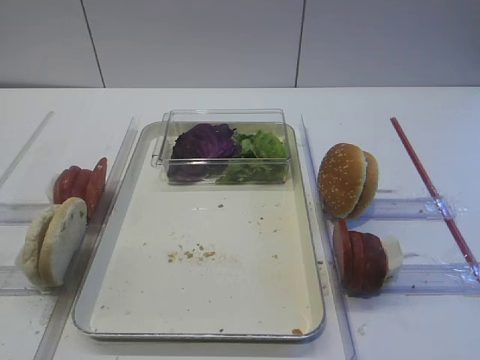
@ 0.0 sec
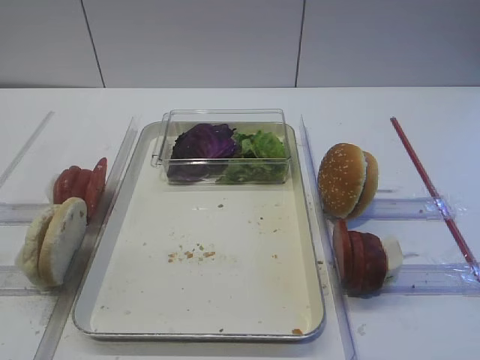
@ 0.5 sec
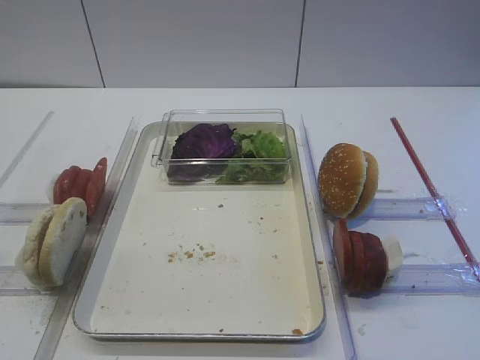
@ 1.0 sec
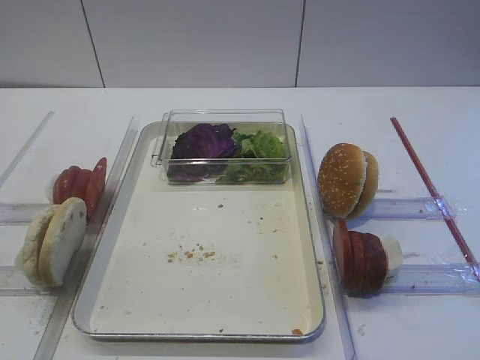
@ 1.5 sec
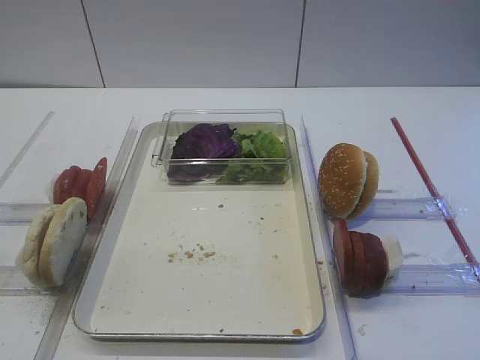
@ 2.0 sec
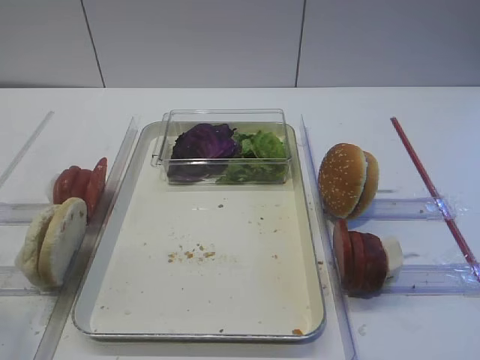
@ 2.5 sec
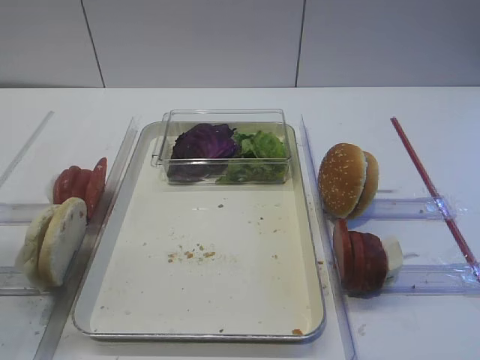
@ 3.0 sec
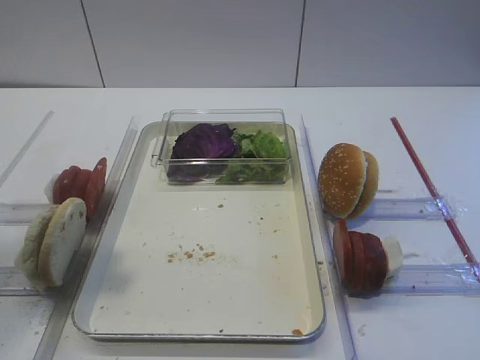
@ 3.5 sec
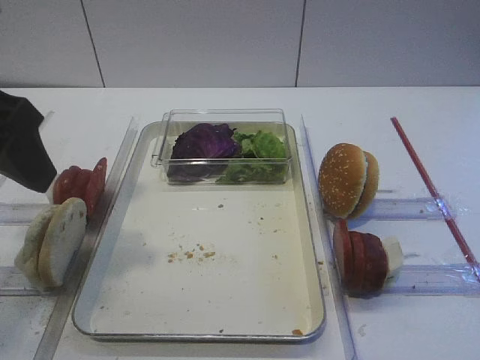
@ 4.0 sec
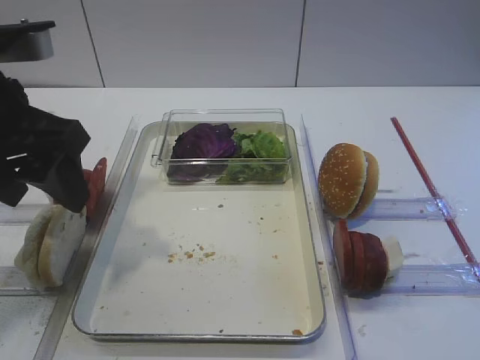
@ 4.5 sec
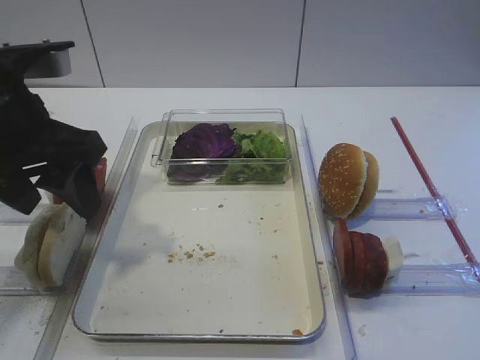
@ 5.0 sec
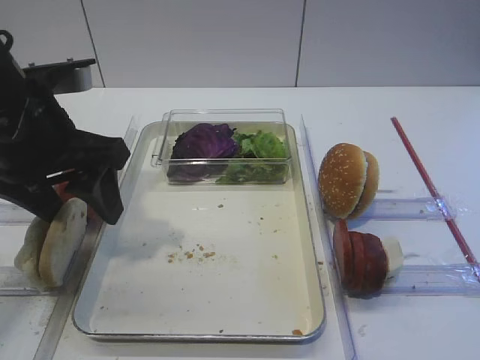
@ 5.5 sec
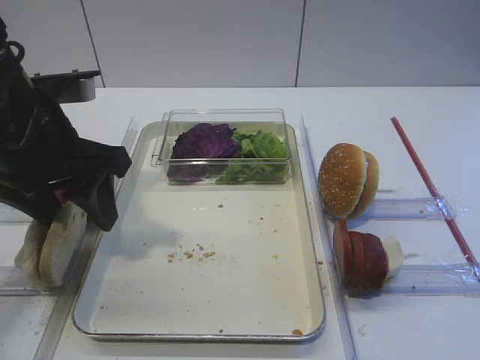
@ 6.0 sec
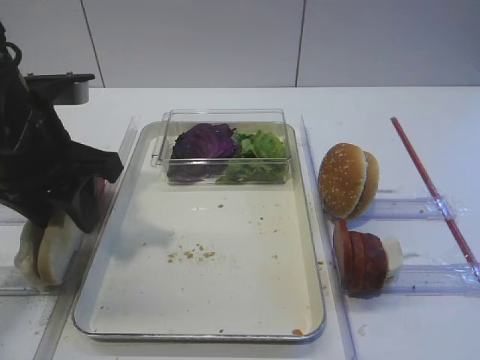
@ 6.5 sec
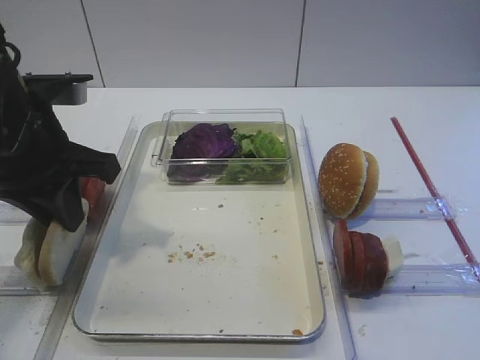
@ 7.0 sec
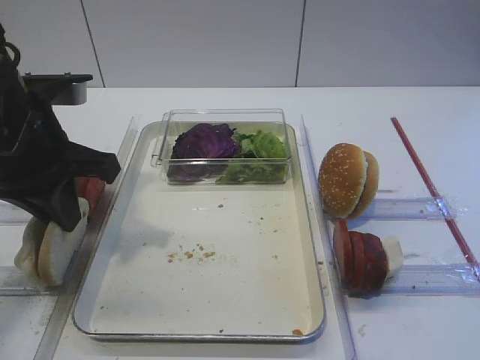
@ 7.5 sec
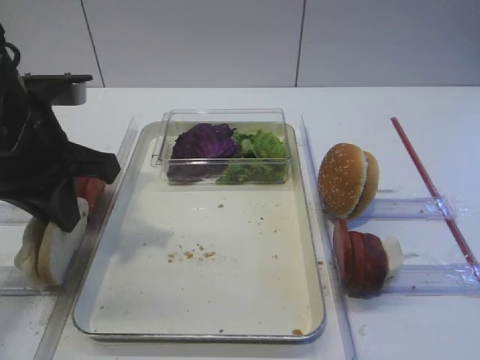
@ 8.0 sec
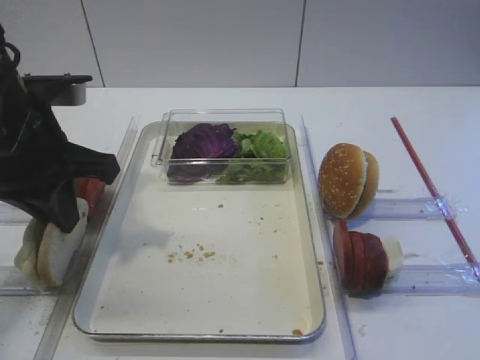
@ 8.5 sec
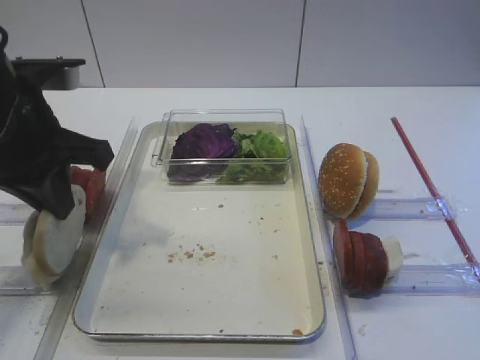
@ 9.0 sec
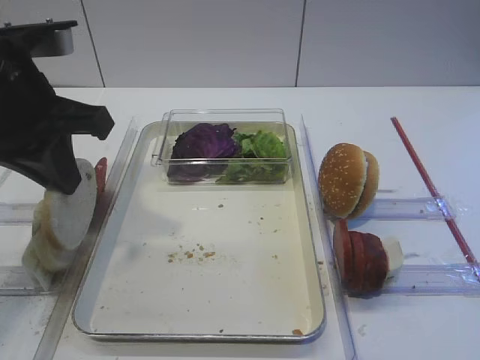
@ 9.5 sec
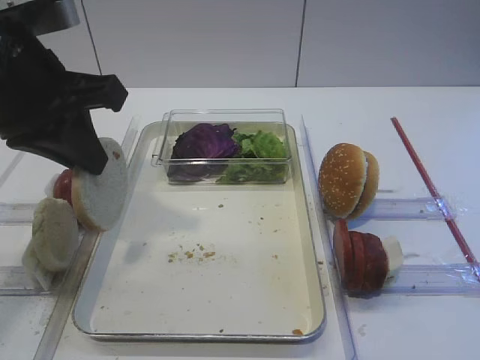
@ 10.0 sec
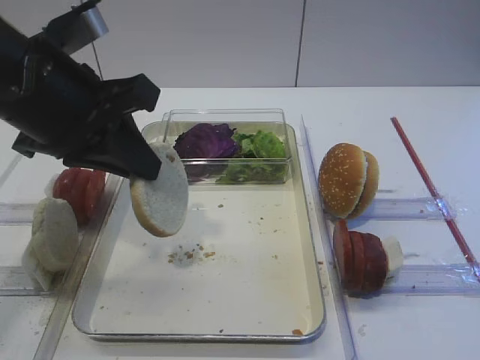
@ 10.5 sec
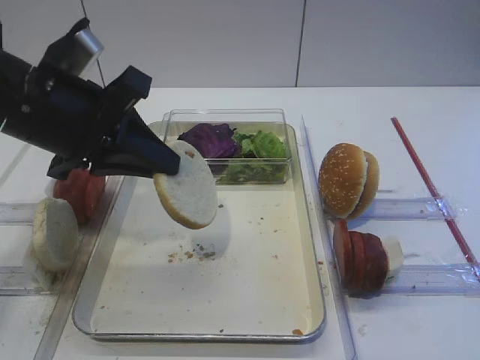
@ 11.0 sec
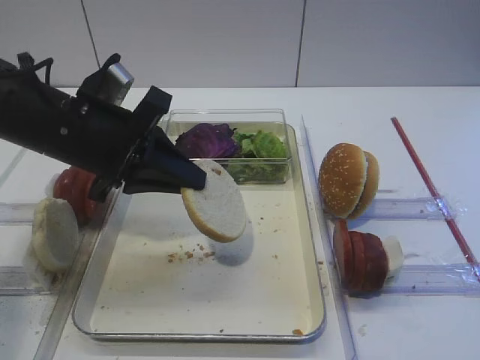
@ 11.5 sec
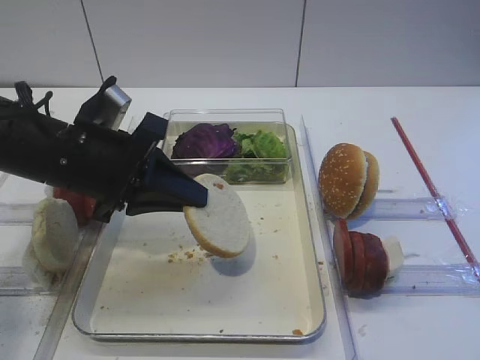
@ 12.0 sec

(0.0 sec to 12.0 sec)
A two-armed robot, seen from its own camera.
Step, 0.0 sec - 10.0 sec: Pick up the bread slice with the left gripper.
2.0 sec - 4.0 sec: The left gripper is displaced forward by some 20 cm.
4.0 sec - 6.0 sec: The left gripper goes some 10 cm downward and forward.
6.0 sec - 8.0 sec: The left gripper closes its fingers.
8.0 sec - 10.0 sec: The left gripper travels upward by approximately 5 cm.
10.0 sec - 12.0 sec: The left gripper travels downward by roughly 10 cm.

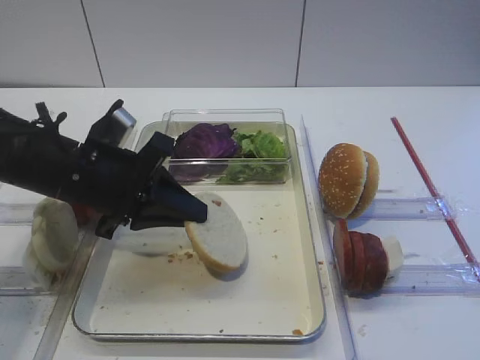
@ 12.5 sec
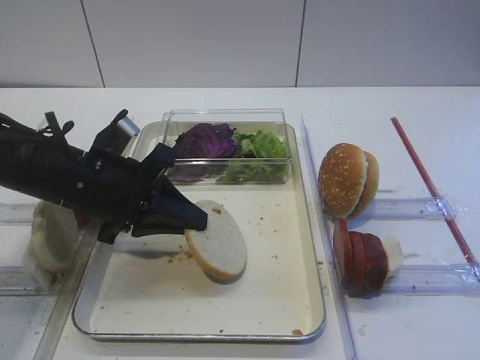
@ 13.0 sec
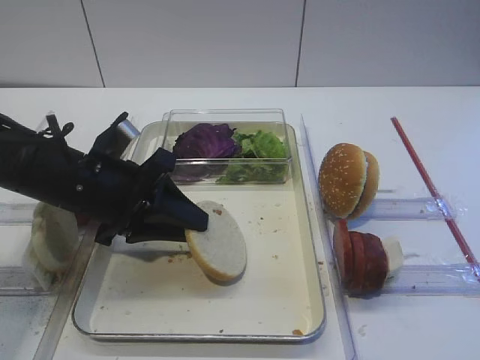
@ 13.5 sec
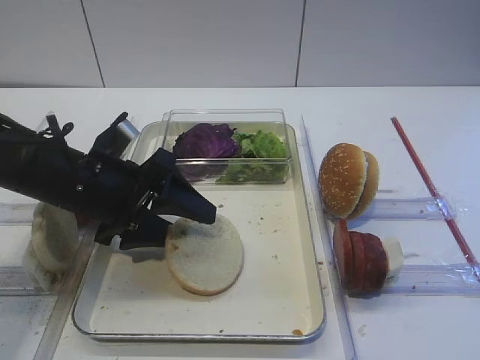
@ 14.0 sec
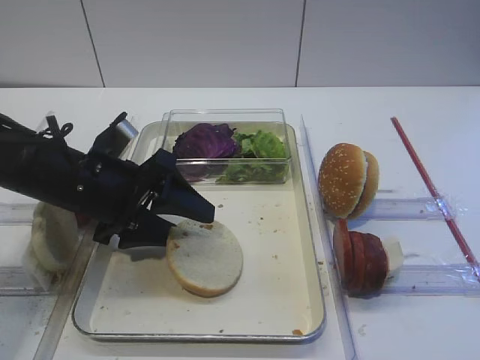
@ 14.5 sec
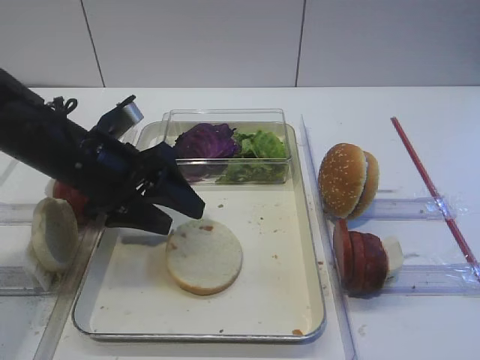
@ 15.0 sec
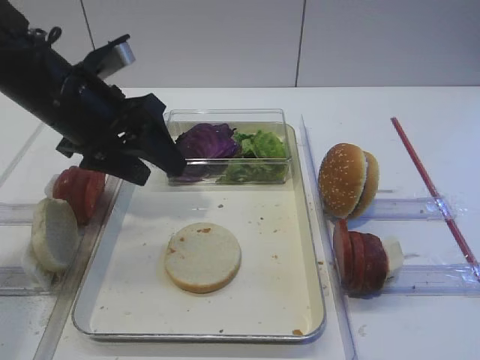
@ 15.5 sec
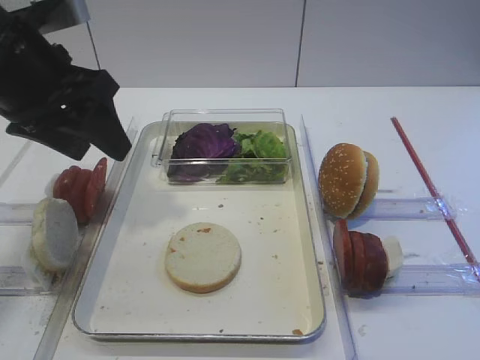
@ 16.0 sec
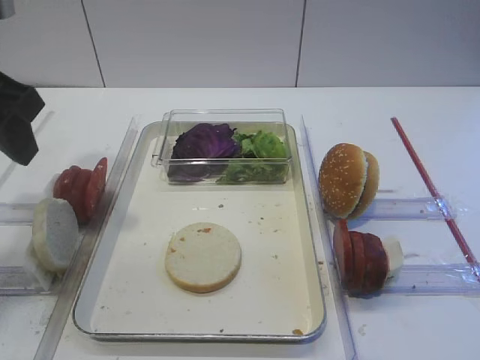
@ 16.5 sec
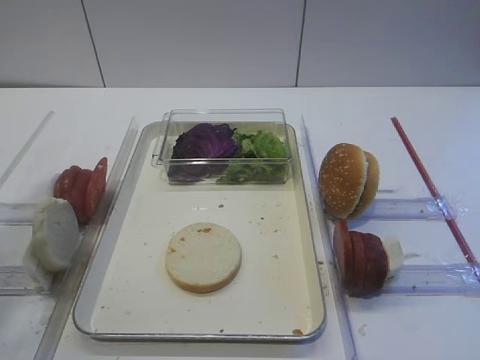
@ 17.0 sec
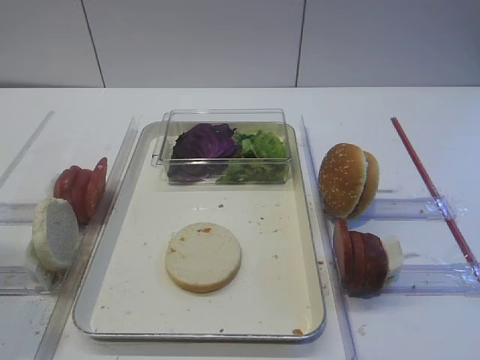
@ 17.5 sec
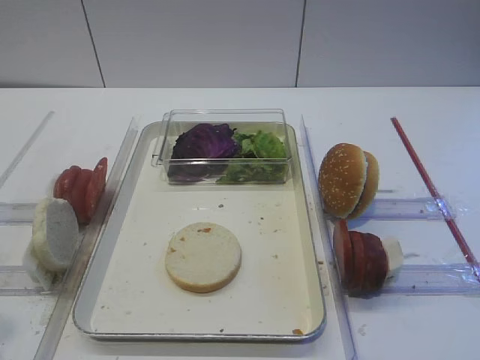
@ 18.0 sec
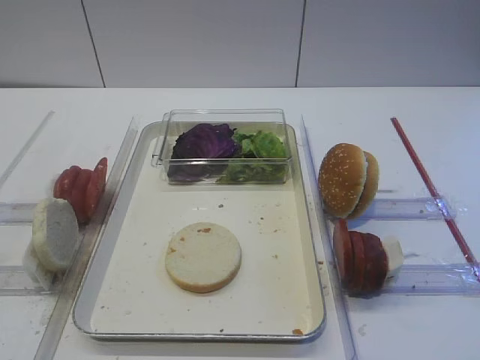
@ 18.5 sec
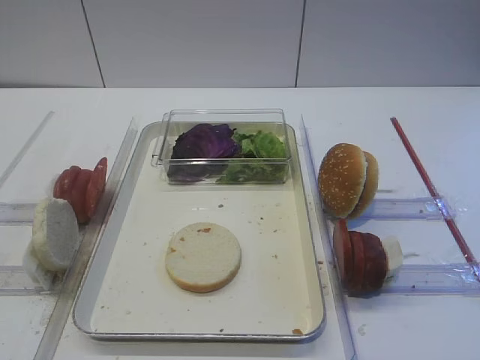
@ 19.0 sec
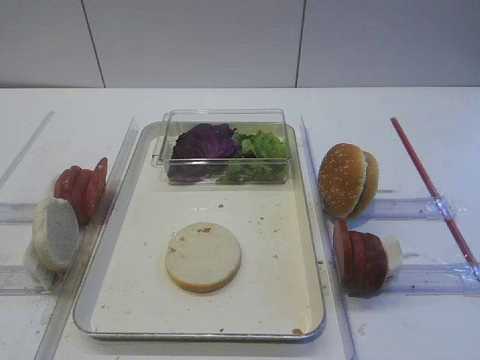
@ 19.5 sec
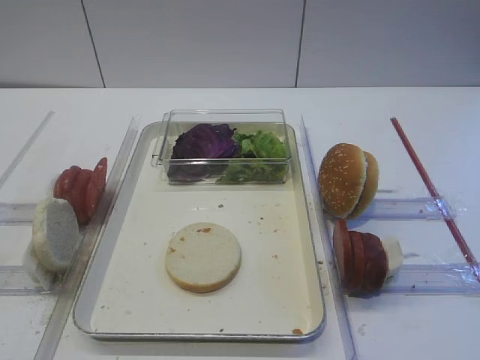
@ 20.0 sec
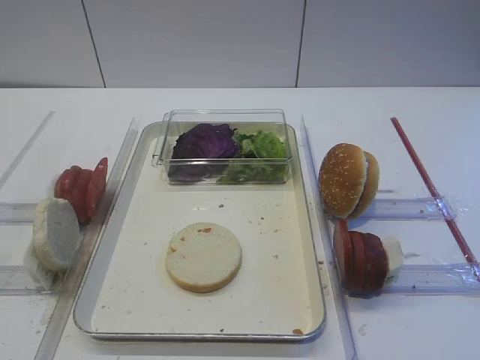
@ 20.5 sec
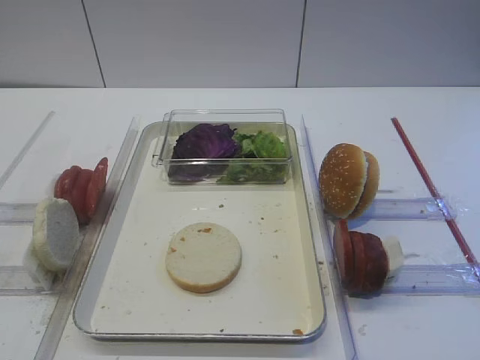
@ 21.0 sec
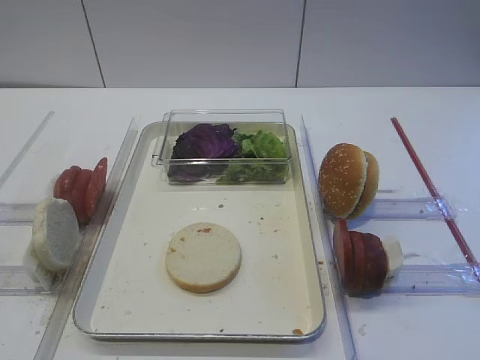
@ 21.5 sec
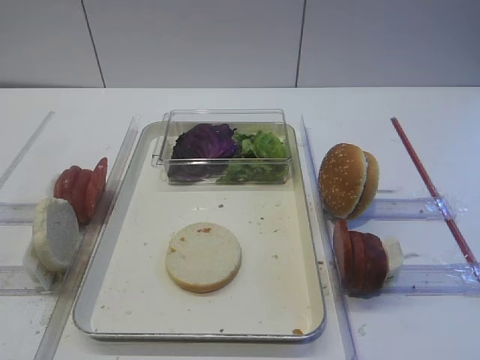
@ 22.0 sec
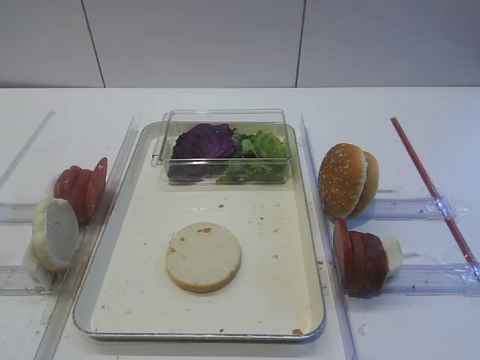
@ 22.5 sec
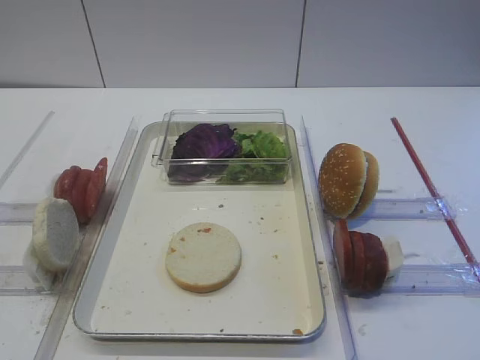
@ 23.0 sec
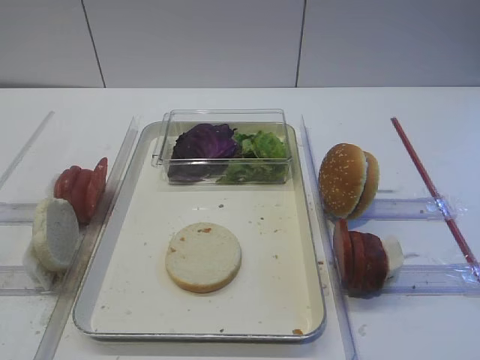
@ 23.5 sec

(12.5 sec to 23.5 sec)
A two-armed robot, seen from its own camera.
Step, 12.5 sec - 16.0 sec: Place the bread slice on the tray with the left gripper.
12.5 sec - 14.5 sec: The left gripper opens up.
14.5 sec - 16.0 sec: The left gripper shifts approximately 15 cm upward.
16.0 sec - 18.0 sec: The left gripper heads backward, covering approximately 25 cm.
21.5 sec - 23.5 sec: Both grippers stay put.

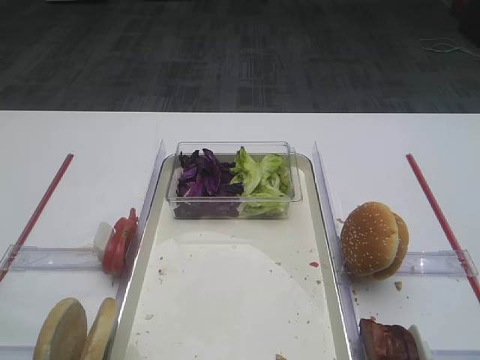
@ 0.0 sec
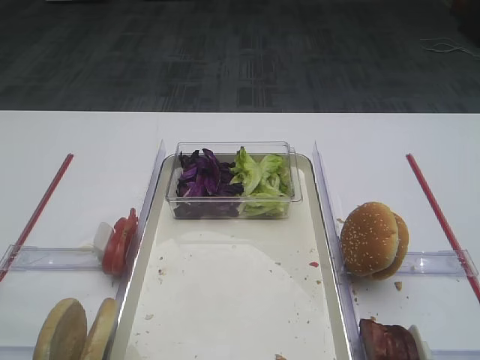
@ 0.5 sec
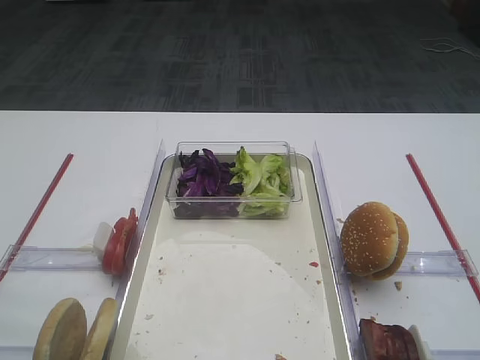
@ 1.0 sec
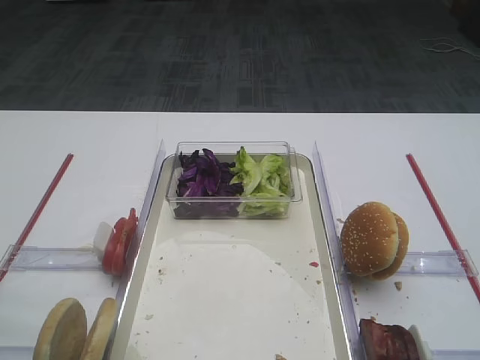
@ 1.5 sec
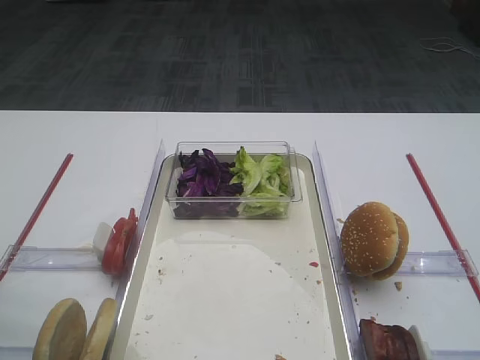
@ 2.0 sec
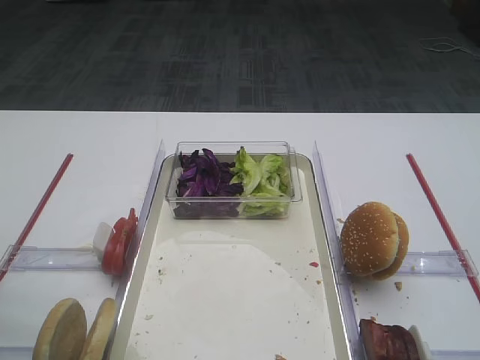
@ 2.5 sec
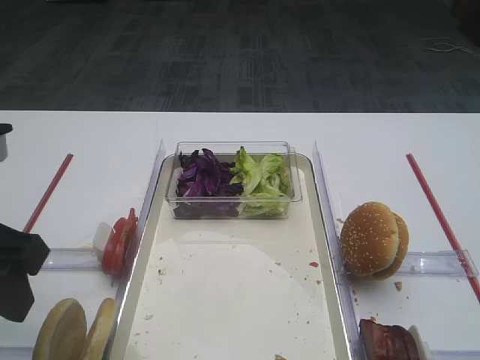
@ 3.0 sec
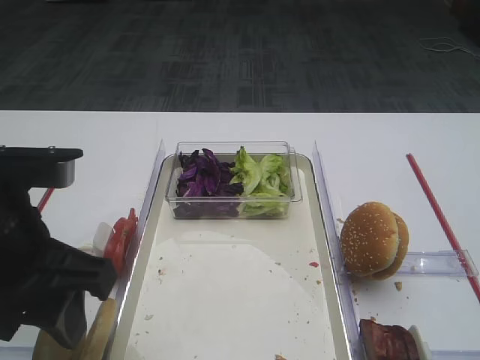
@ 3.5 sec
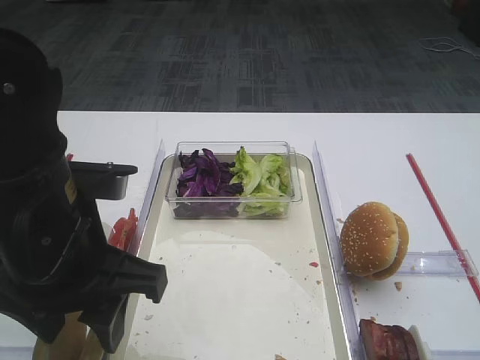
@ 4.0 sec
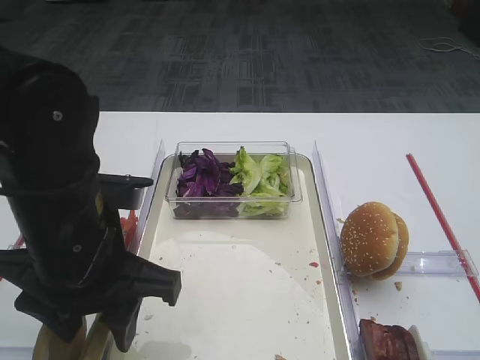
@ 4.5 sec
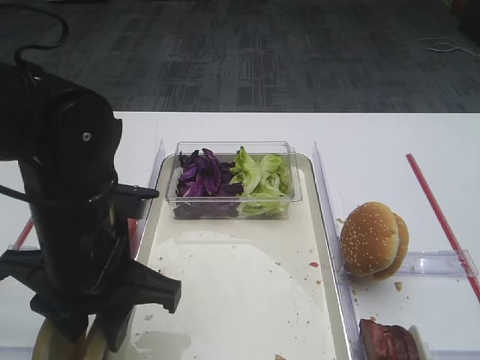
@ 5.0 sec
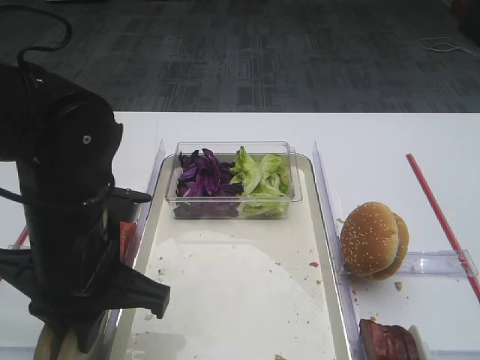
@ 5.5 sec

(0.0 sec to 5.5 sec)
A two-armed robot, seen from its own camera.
2.0 sec - 3.5 sec: The left gripper goes roughly 10 cm to the right.
3.5 sec - 5.5 sec: The left gripper moves downward, some 5 cm, and closes.
